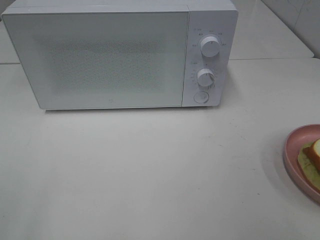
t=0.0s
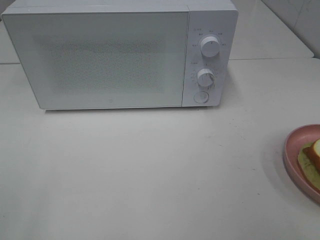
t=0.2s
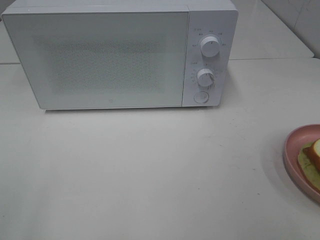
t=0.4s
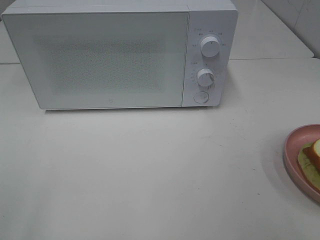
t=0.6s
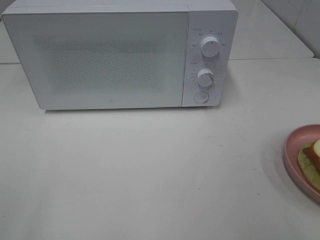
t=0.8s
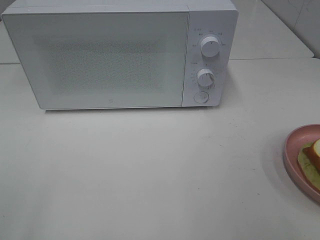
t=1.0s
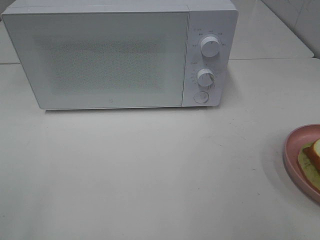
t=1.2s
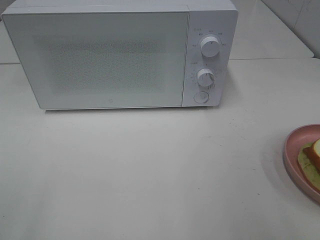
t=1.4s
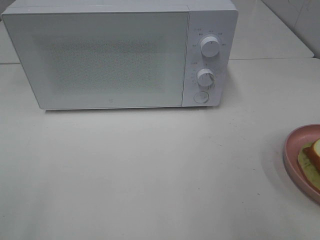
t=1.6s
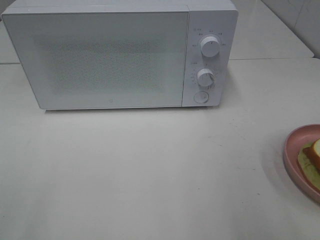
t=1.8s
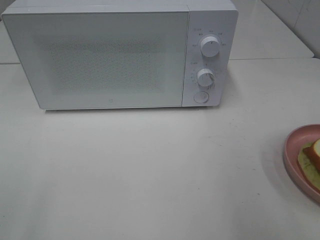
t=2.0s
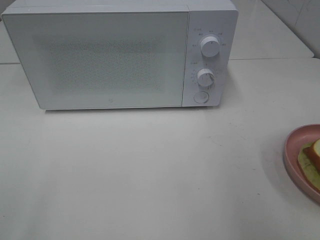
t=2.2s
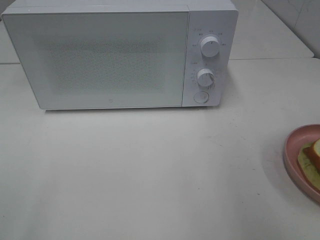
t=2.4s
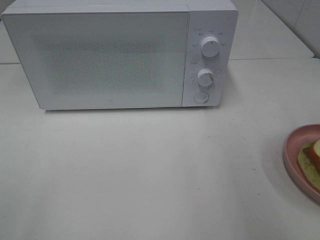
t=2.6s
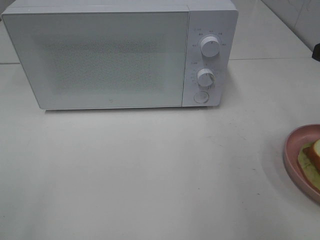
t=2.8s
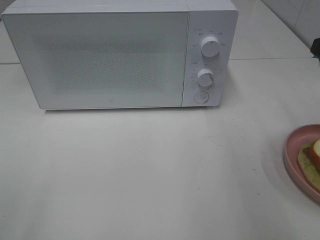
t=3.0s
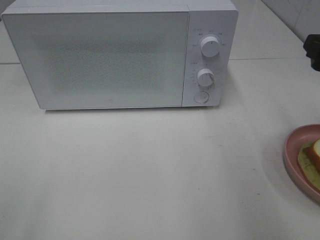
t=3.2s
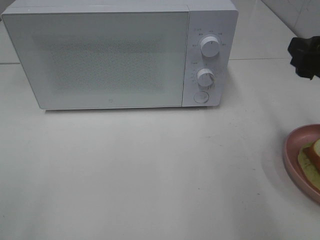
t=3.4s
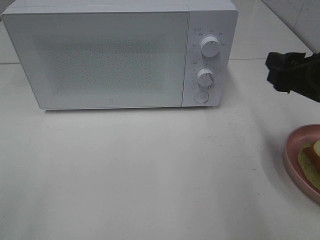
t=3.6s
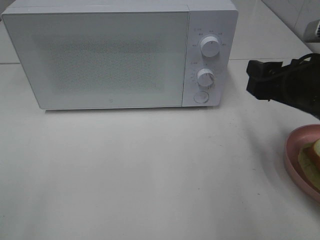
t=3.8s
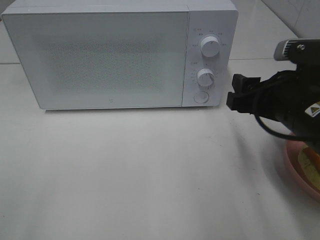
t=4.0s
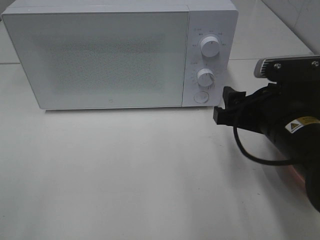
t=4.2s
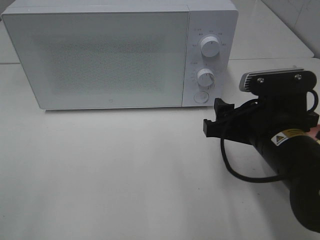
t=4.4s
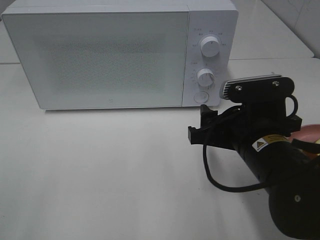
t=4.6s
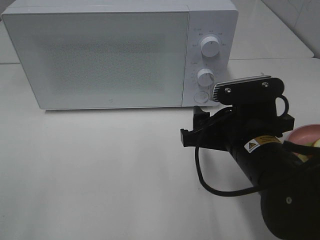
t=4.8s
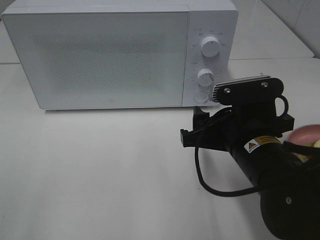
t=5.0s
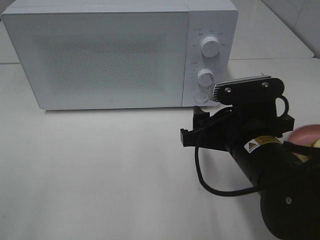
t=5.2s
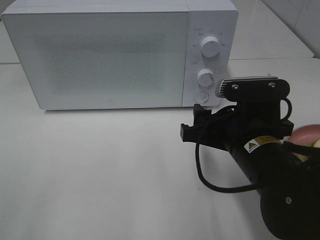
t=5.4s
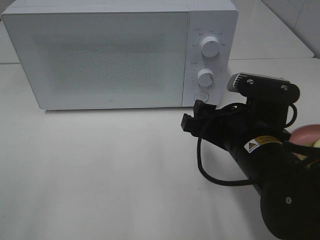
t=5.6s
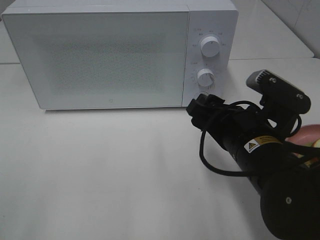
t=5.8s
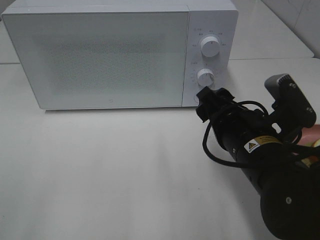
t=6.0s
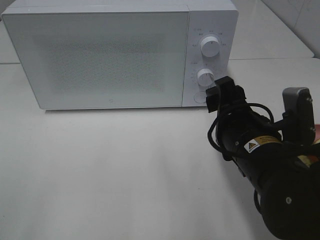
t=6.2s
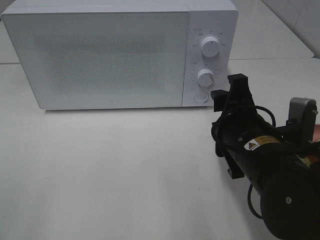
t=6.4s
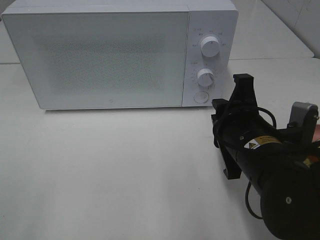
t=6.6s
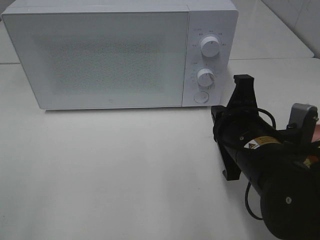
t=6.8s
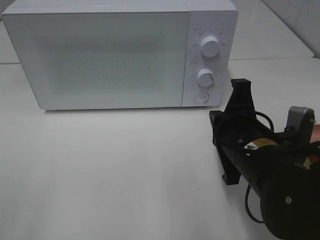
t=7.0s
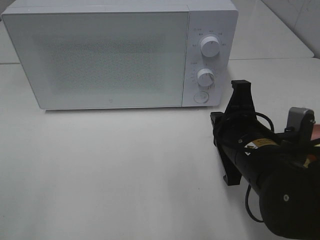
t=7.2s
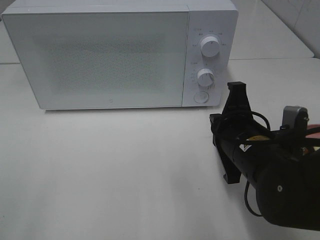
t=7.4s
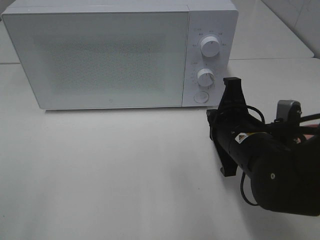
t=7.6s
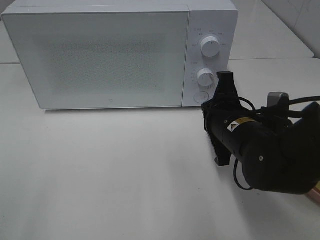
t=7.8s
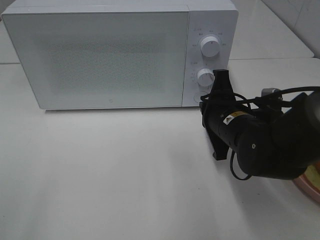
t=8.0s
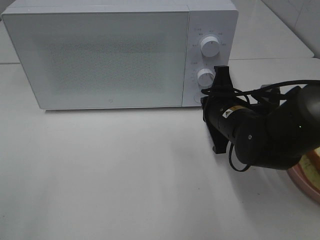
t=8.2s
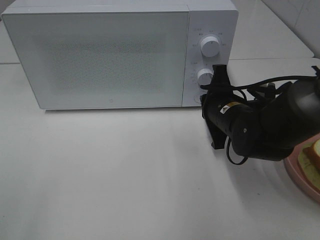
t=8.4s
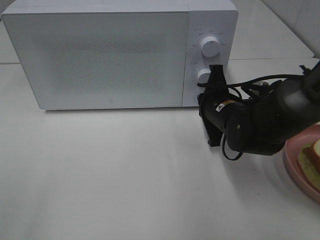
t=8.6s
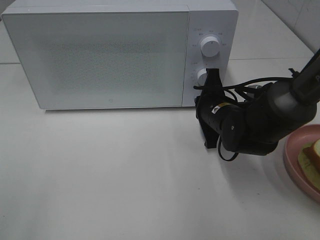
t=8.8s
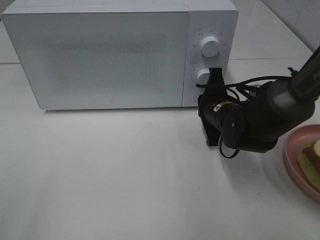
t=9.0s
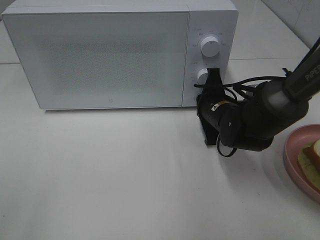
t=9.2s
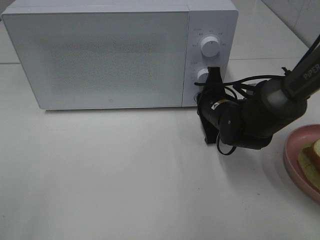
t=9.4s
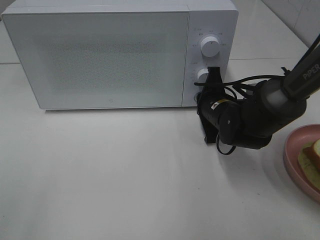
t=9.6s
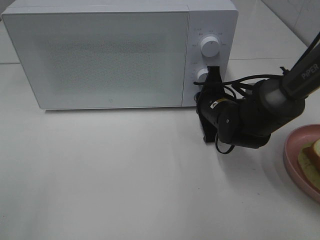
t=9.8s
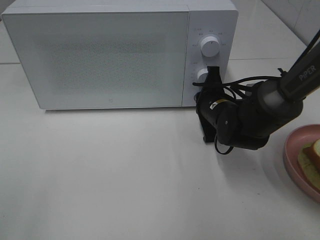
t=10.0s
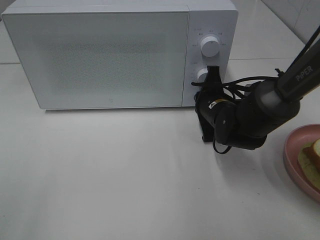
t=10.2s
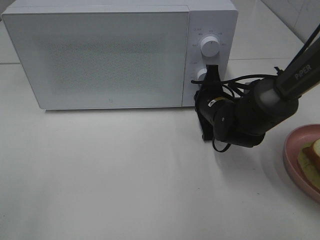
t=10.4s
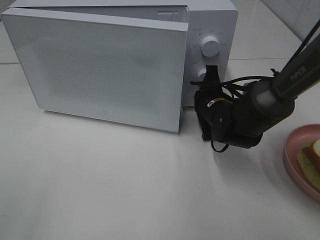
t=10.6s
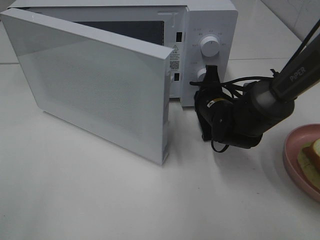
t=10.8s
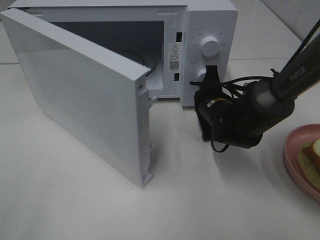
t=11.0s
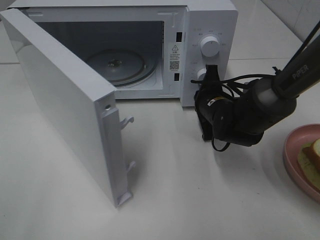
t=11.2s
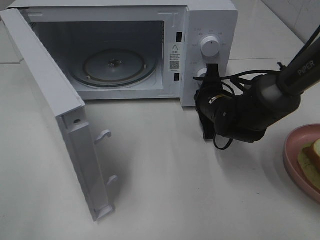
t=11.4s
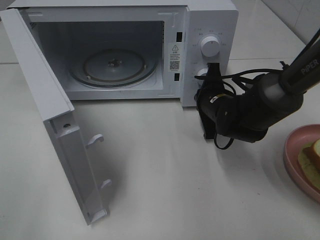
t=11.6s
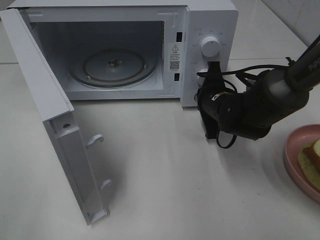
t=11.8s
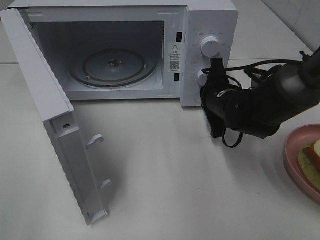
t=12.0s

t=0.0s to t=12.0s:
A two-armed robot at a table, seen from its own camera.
Task of the whole recording: Heat Sandwich.
Step, t=0.0s to t=12.0s: Right hand: press the switch.
t=3.0s to t=4.4s: The right gripper shifts about 15 cm to the left and downward.
t=6.0s to t=7.6s: The right gripper closes.
t=7.6s to t=9.0s: The right gripper travels forward by some 10 cm.
t=9.0s to t=10.4s: The grippers make only small movements.

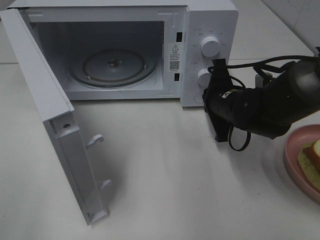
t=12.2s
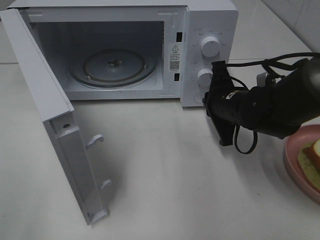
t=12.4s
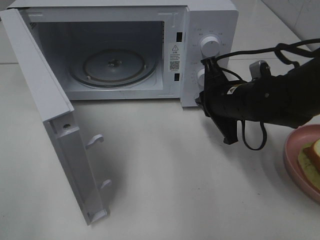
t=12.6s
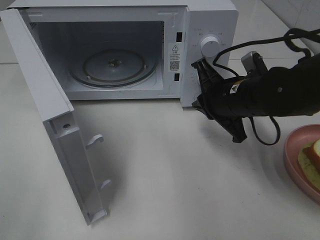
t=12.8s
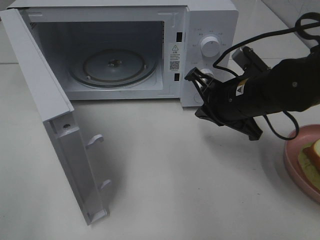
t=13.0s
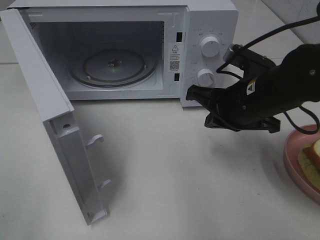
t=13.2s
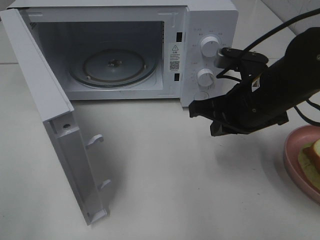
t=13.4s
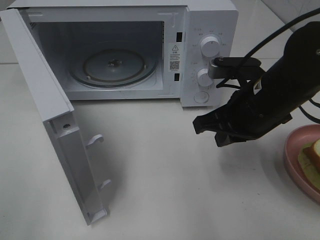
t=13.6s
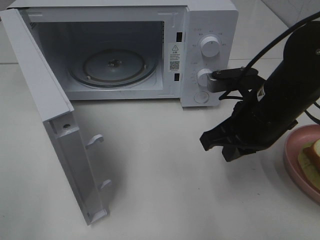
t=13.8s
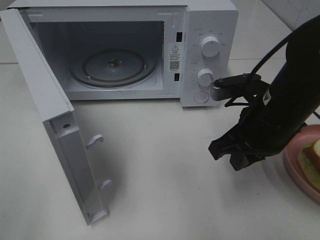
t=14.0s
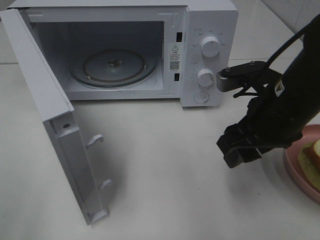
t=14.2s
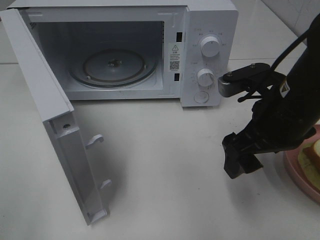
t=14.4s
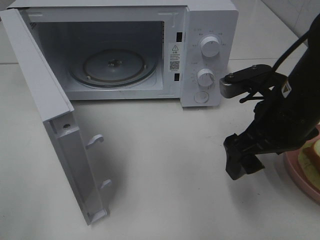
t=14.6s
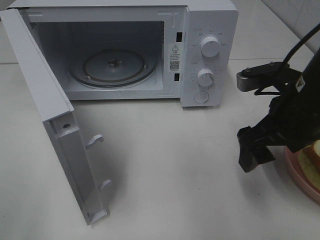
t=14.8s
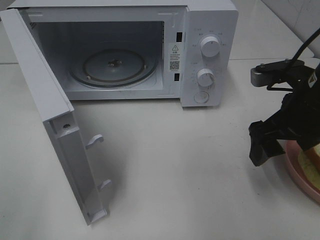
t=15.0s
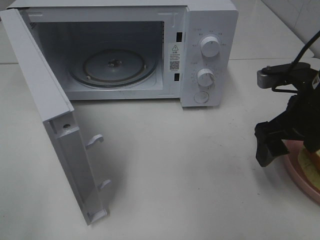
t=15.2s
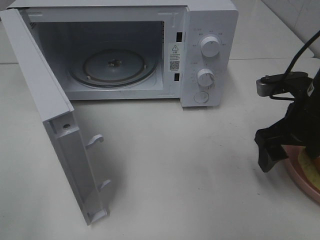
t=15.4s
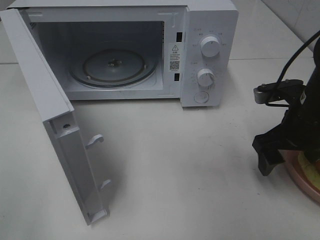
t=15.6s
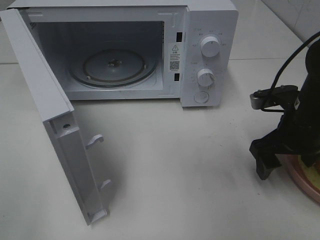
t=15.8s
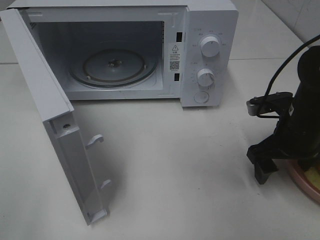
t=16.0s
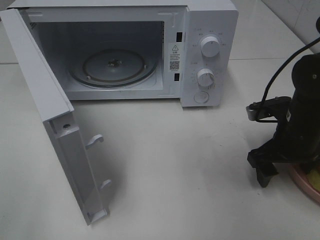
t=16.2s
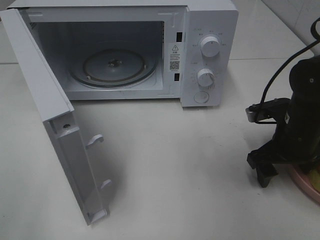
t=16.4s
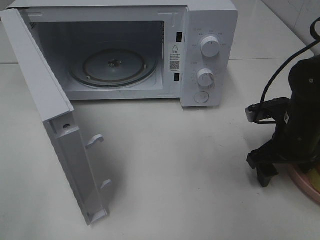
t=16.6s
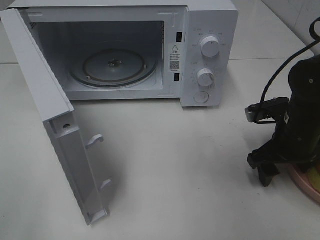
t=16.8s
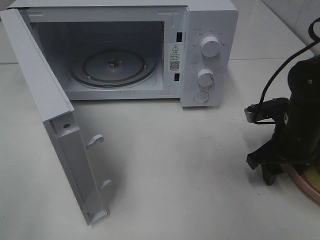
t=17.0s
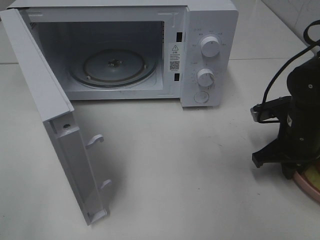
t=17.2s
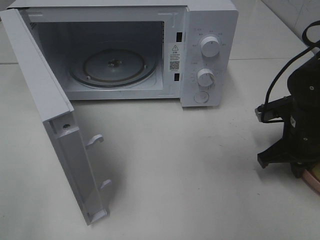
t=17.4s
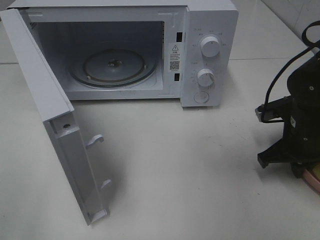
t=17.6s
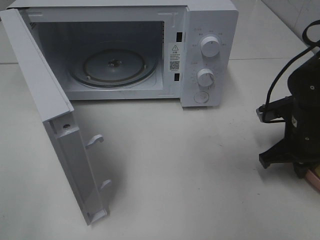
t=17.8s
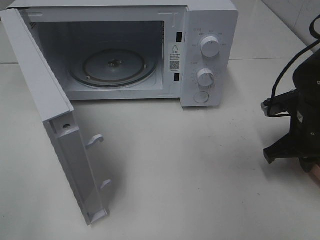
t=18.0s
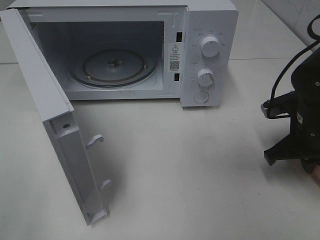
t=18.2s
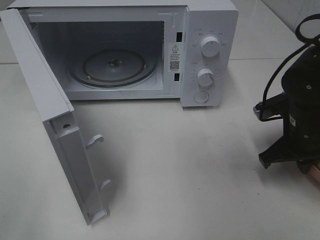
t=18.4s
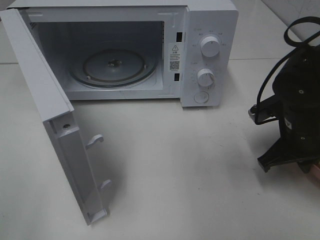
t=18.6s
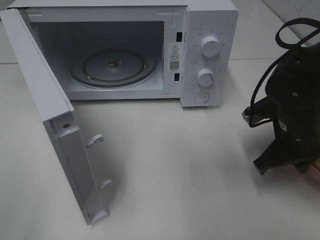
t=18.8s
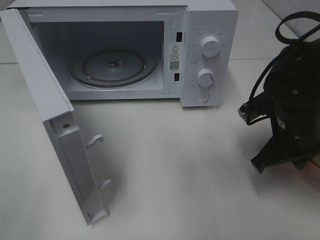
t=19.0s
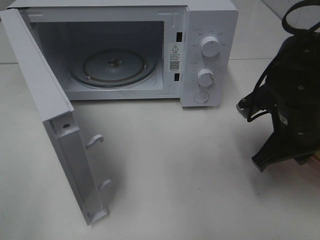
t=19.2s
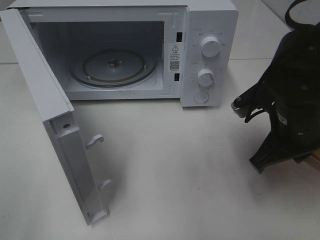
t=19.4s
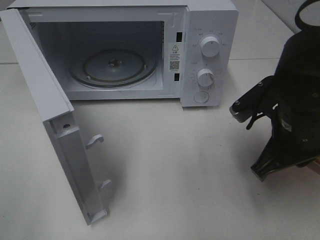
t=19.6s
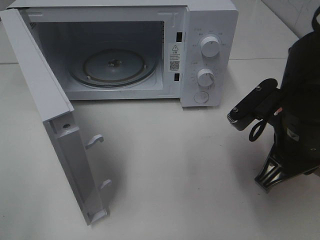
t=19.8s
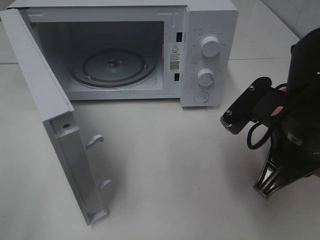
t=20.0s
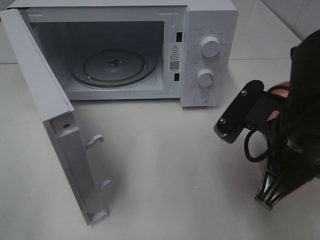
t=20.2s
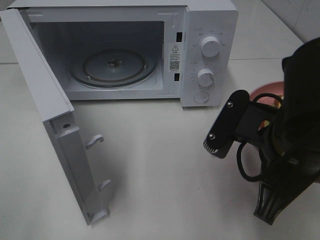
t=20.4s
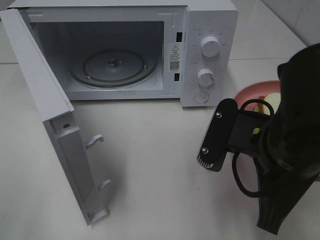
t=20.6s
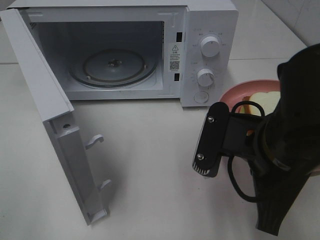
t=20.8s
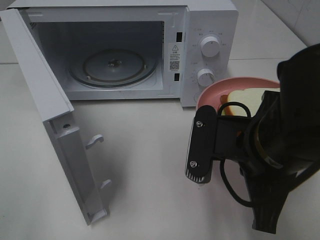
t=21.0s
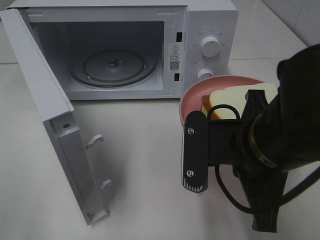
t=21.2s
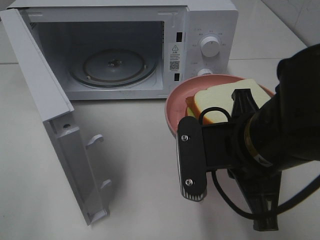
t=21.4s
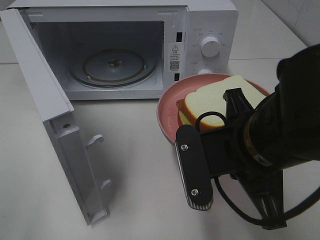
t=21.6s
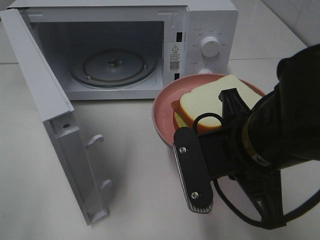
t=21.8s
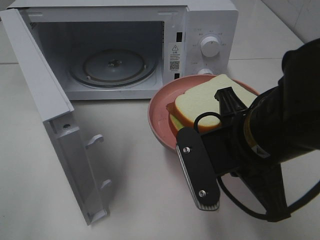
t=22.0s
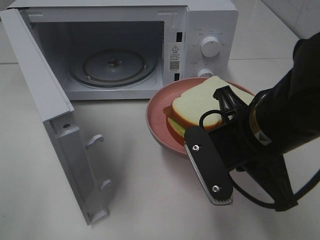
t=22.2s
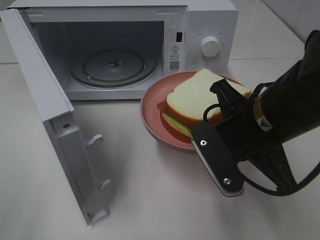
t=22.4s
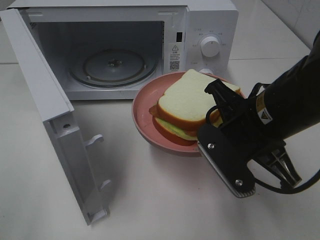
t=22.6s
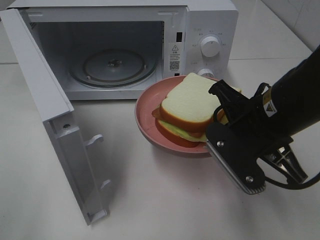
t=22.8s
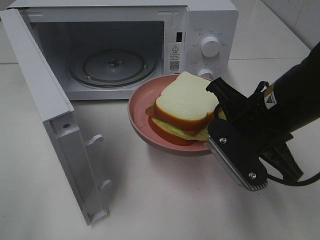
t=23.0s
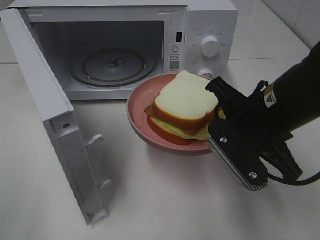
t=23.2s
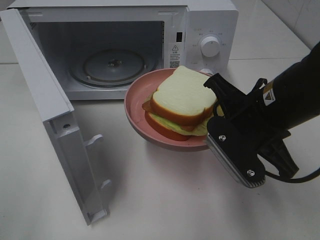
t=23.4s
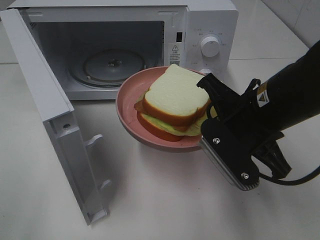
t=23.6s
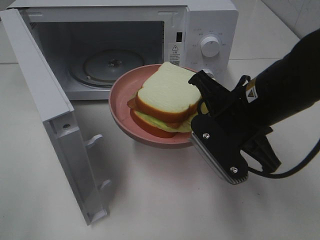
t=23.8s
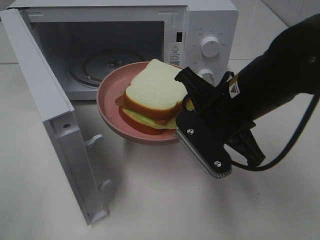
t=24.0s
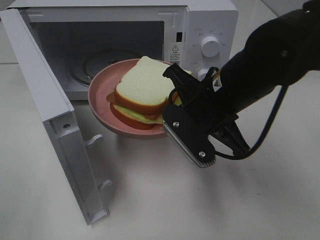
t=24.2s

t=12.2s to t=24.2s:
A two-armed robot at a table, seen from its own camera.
Task of the whole recording: Heat Sandwich.
Step, t=12.2s to t=17.6s: Right hand: grab the plate with the sandwich.
t=12.2s to t=13.8s: The right gripper moves backward and upward, roughly 10 cm.
t=13.8s to t=15.2s: The right gripper travels to the right by approximately 5 cm, and opens up.
t=15.2s to t=16.6s: The right gripper heads downward, covering about 10 cm.
t=16.6s to t=18.2s: The right gripper closes up.
t=18.2s to t=19.8s: The right gripper shifts about 15 cm to the left, backward and upward.
t=19.8s to t=21.2s: The right gripper shifts about 5 cm to the left.
t=21.2s to t=22.6s: The right gripper shifts by roughly 5 cm.
t=22.6s to t=24.2s: The right gripper shifts by some 5 cm.
